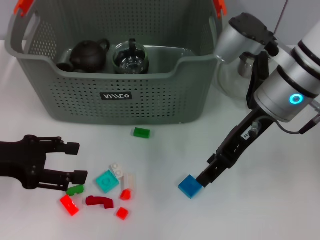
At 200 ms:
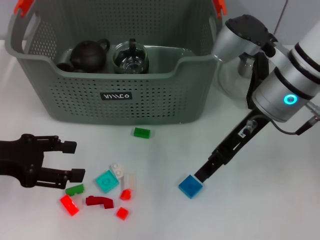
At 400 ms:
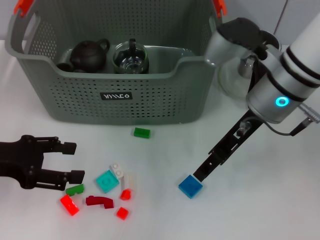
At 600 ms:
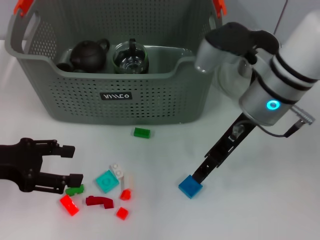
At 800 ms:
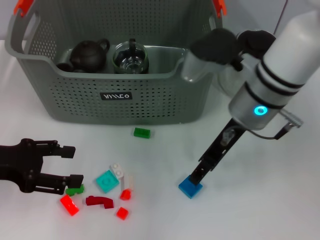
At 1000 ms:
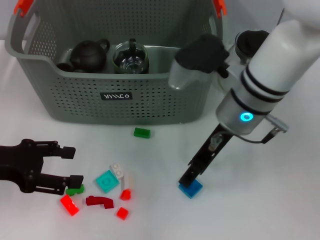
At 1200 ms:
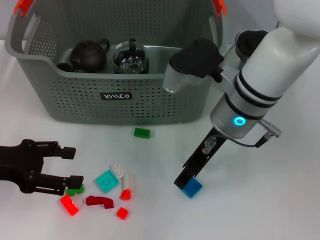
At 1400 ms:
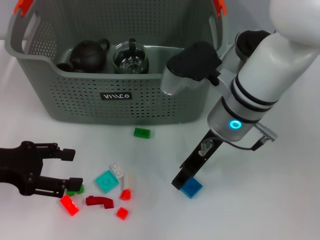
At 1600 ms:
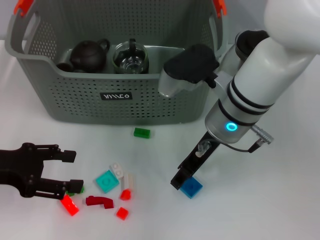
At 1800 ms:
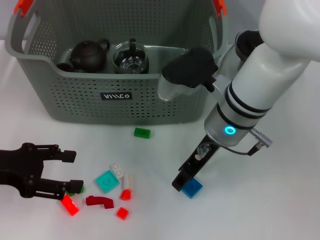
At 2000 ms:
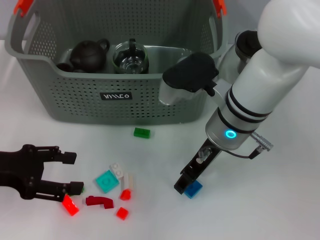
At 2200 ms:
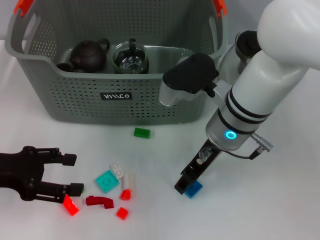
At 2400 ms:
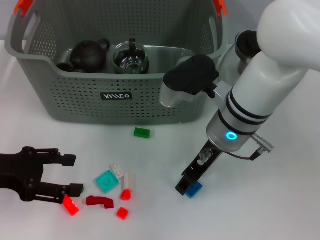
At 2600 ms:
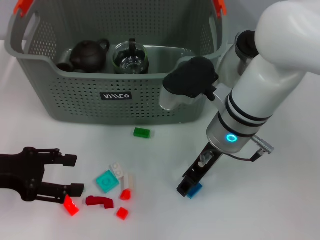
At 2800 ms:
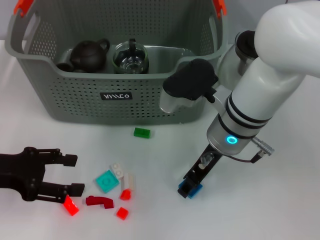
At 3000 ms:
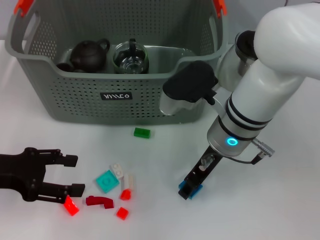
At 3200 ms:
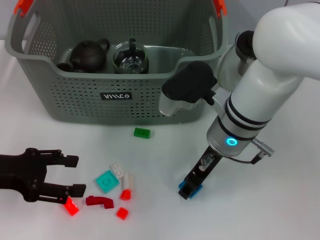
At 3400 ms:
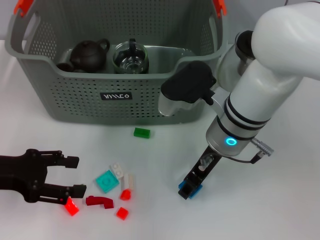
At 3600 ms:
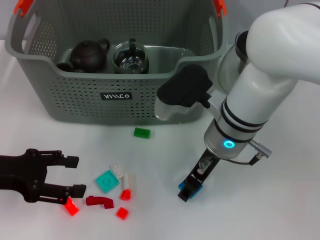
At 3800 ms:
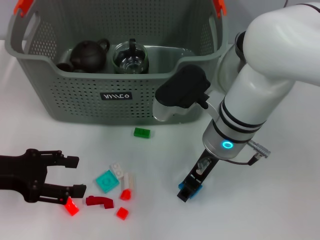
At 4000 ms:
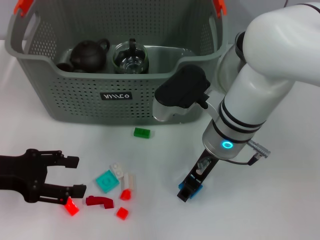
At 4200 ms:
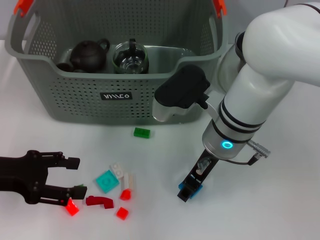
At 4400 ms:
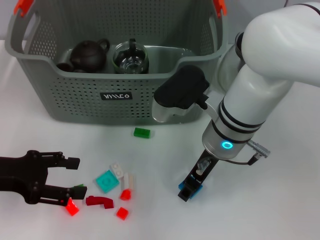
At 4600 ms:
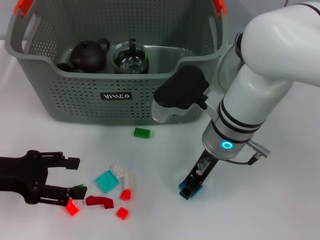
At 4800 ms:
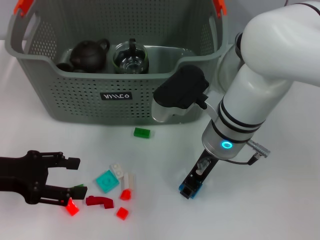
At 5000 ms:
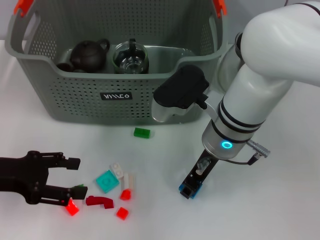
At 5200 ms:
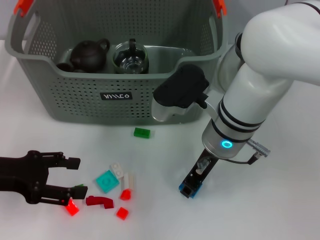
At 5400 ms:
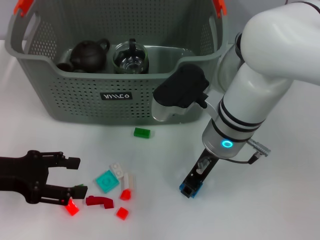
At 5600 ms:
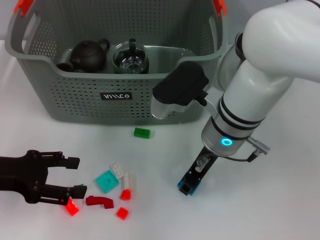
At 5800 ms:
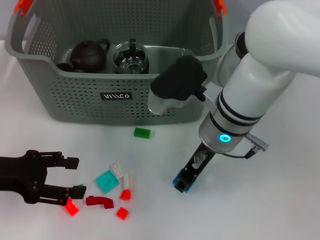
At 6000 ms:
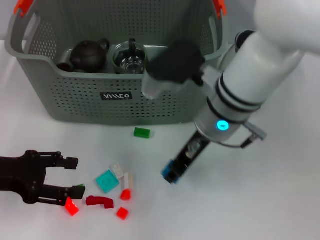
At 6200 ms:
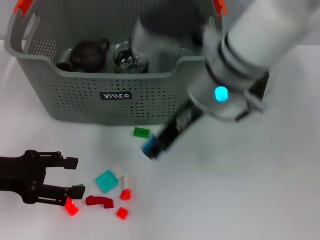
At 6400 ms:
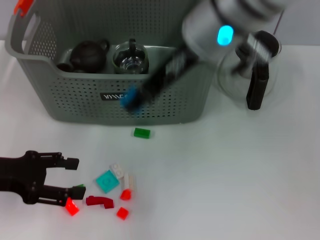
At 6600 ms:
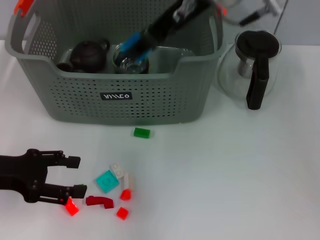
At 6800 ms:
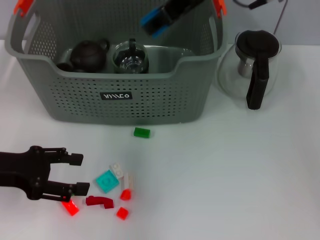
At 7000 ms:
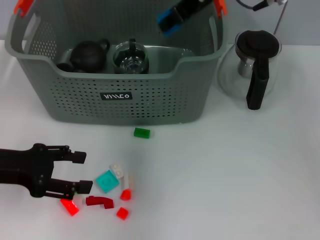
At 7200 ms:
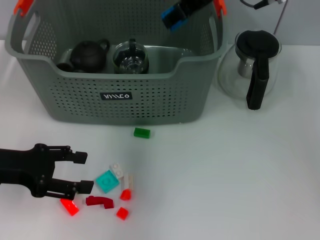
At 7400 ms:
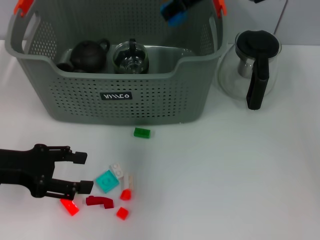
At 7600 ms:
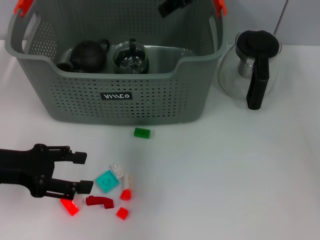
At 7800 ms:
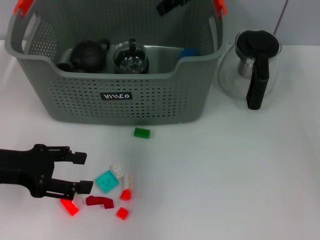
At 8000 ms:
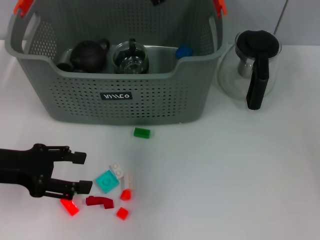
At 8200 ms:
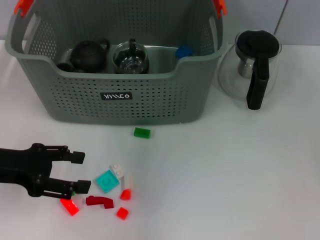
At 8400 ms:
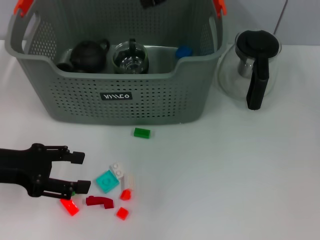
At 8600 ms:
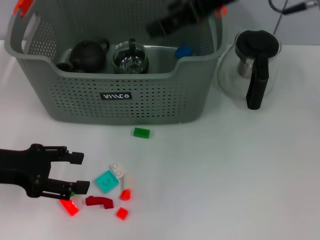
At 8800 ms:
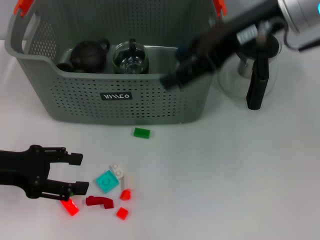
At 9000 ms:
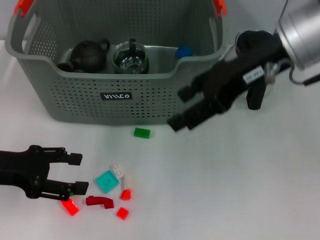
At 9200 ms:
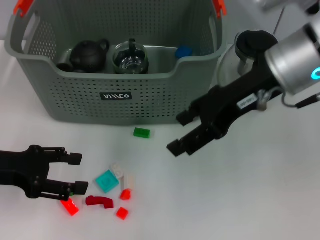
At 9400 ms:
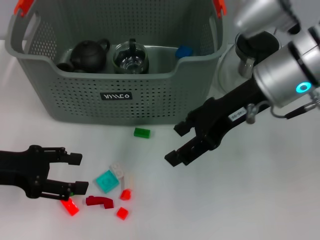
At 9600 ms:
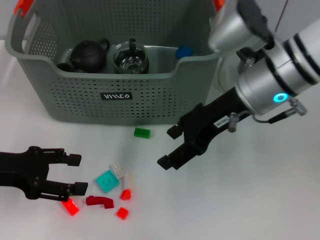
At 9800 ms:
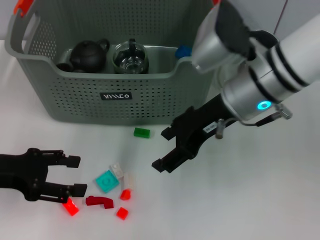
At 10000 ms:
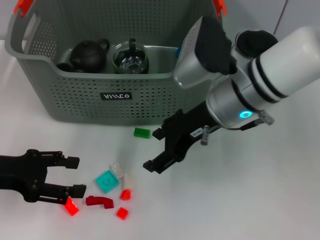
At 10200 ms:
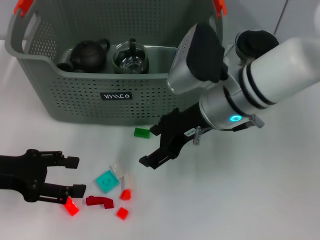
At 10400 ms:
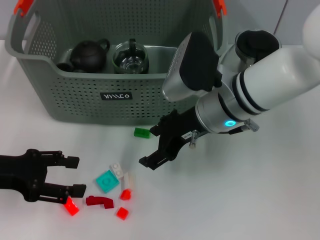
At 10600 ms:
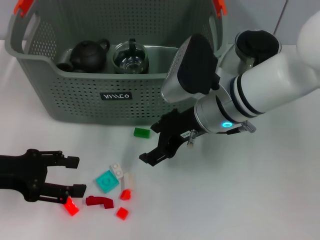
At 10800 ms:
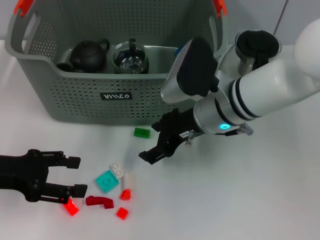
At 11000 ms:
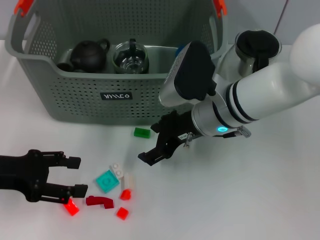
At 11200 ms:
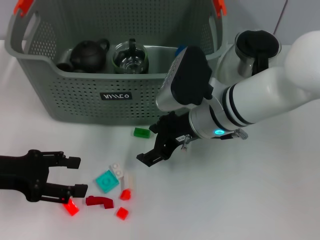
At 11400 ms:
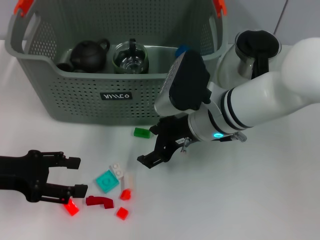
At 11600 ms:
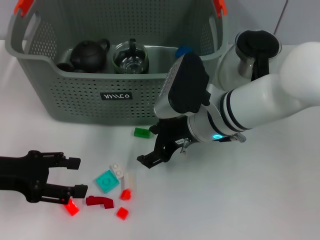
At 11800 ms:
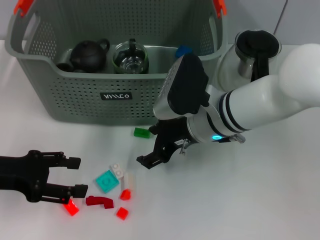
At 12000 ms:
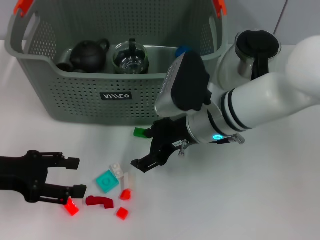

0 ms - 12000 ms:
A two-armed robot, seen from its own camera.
Task of the whole recording: pick up the teacup on the table and place it into the storage bin, pick up the block on the table and place it into the storage bin.
Step, 0 ms - 5800 ms: Grasp the dark blue block with right gripper.
Step, 6000 ms - 7800 ms: Place the dark blue block in the storage box with right gripper.
0 ms - 1600 ms: The right gripper shifts roughly 5 cm to the left.
1600 ms - 3000 ms: The grippers move only a little.
3000 ms - 4400 ms: Both grippers stay put.
4400 ms - 6000 ms: The grippers make only small movements.
6000 ms - 7600 ms: The right gripper shifts roughly 15 cm upward and forward.
7600 ms - 9000 ms: The right gripper heads backward and to the right, covering about 10 cm, and opens.
9000 ms - 10400 ms: The right gripper is displaced downward and to the left by approximately 15 cm.
10400 ms - 12000 ms: The grippers stay close to where they were, moving slightly.

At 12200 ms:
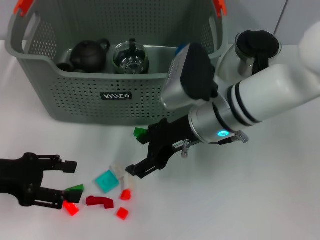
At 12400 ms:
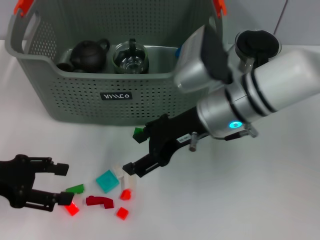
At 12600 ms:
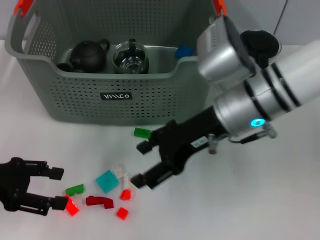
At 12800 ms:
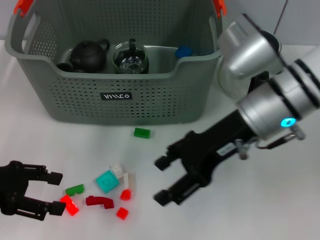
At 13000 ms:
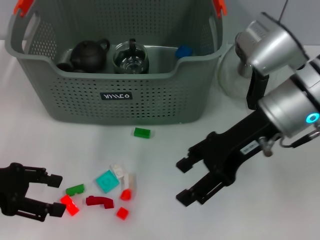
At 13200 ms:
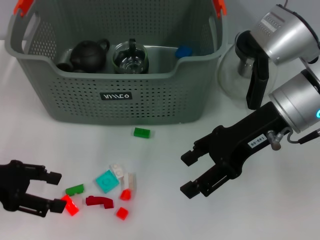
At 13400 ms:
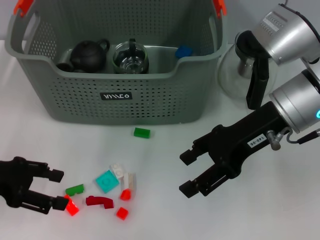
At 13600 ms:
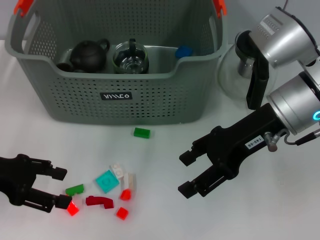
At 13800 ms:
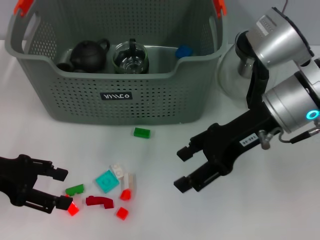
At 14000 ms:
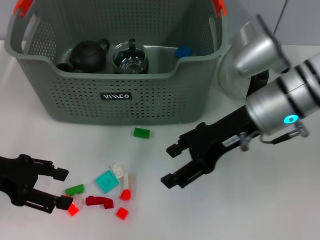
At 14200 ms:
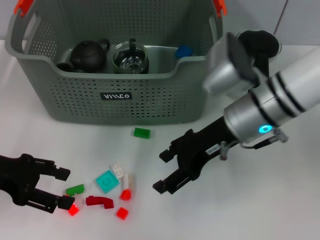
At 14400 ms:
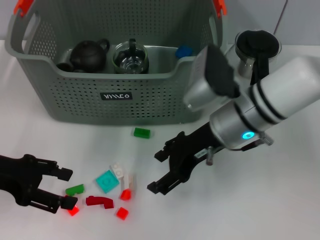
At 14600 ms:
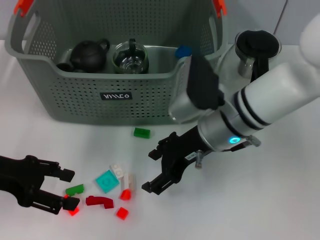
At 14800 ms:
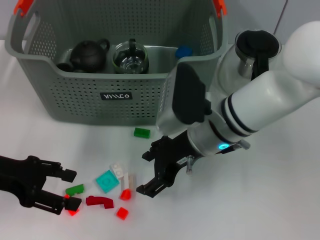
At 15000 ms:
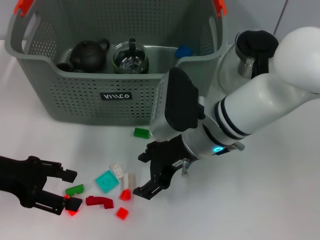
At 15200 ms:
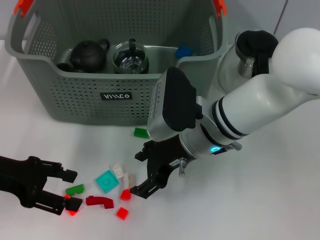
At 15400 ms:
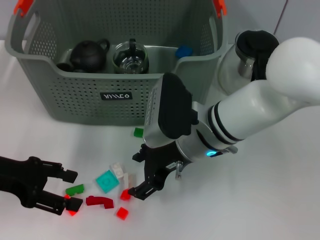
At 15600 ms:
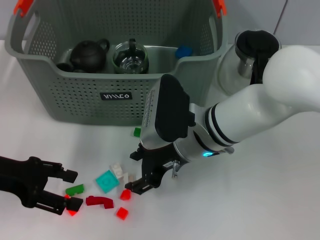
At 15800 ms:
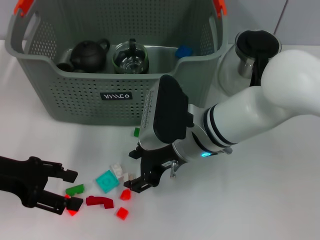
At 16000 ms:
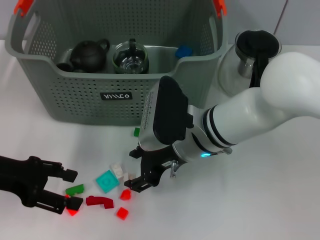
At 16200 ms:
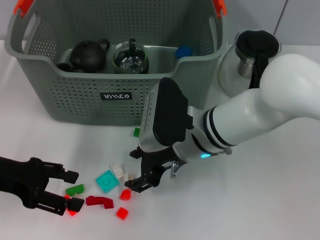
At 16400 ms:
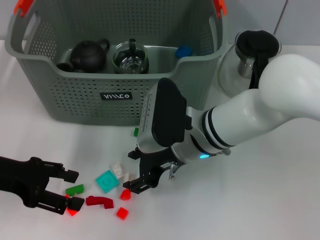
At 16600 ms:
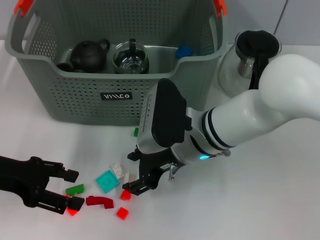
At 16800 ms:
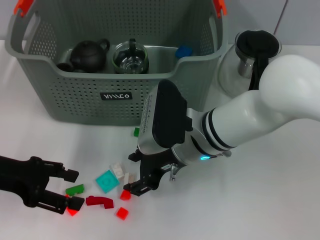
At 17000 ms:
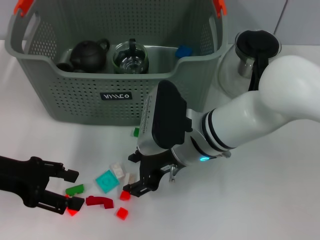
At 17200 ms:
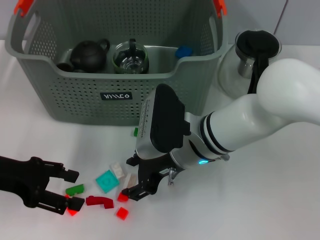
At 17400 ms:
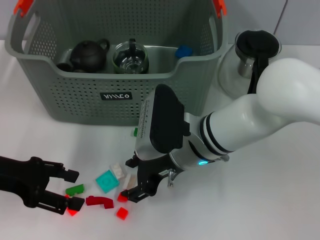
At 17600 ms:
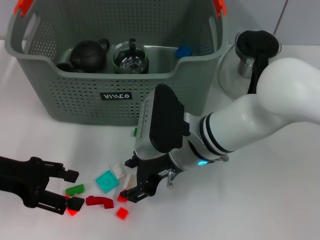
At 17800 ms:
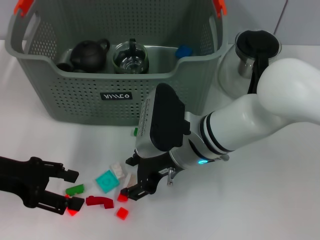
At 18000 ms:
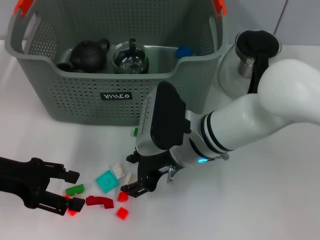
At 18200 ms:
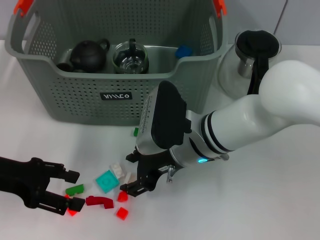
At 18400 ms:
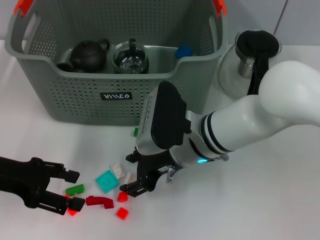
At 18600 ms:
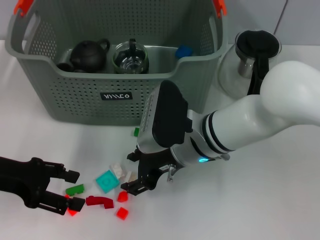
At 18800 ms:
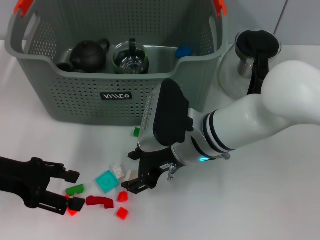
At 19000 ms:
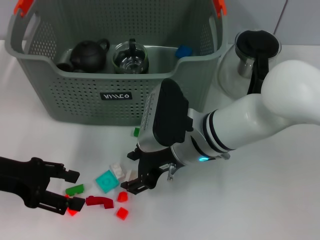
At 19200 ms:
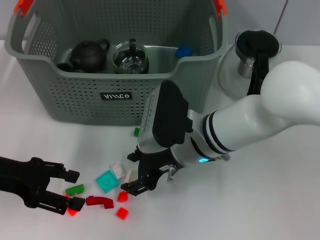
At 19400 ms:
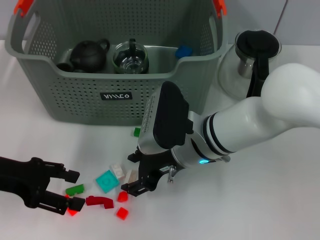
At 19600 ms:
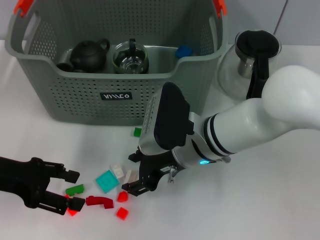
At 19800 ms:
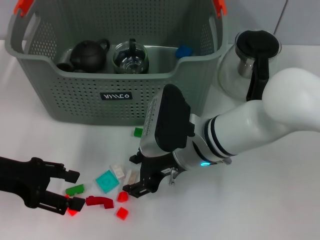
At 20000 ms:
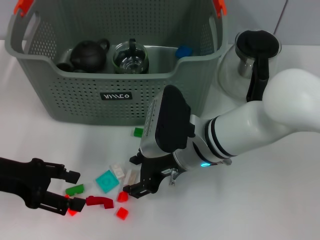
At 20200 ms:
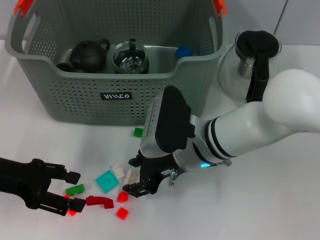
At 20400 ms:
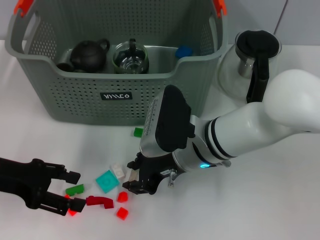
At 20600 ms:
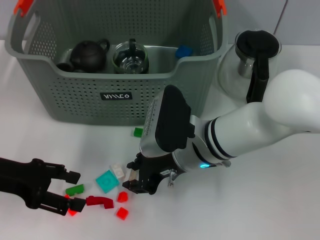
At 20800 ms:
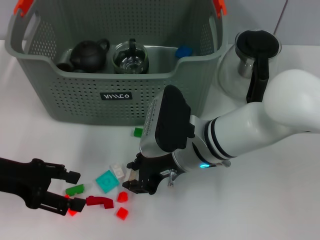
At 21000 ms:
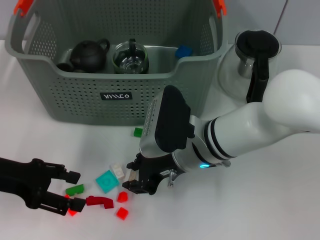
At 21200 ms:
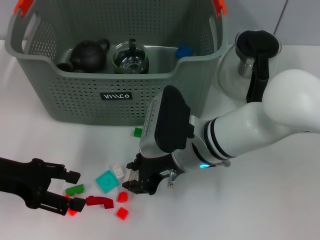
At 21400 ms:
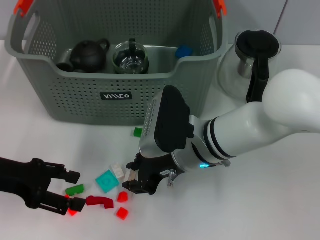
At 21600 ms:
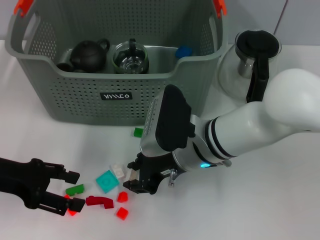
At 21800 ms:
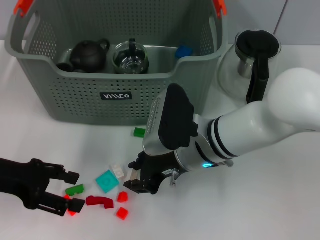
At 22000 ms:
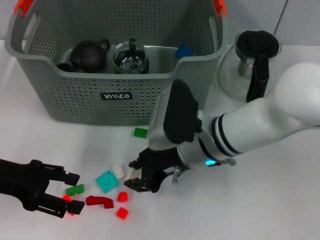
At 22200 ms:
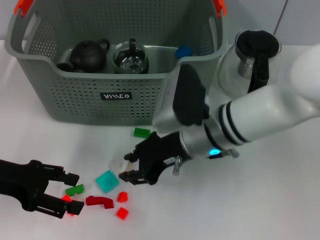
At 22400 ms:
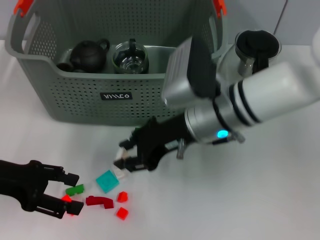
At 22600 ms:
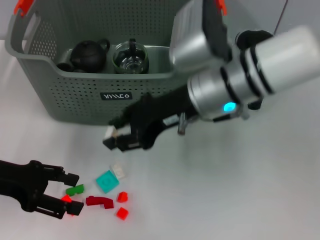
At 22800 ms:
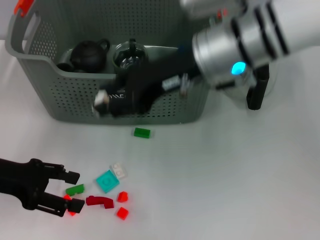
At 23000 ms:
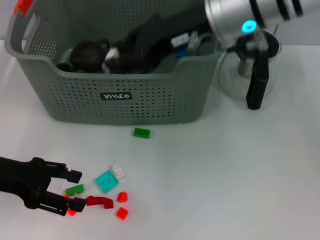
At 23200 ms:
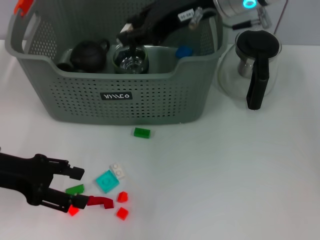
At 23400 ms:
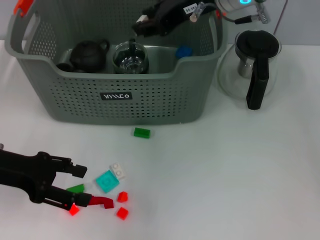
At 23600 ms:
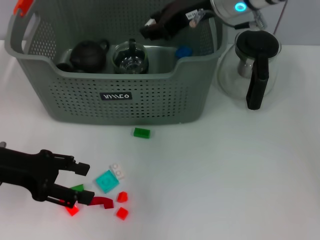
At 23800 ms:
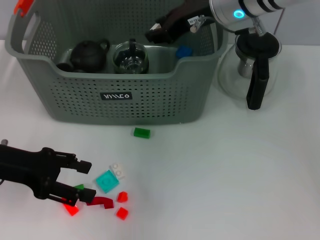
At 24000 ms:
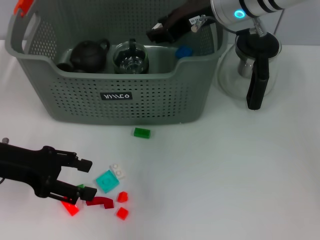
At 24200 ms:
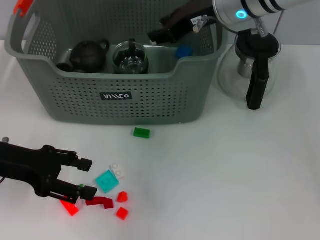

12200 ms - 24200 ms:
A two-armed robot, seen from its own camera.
Task of the whole recording: pick up the teacup on the table and place it into the storage bin, pick up the block on the table and place it into the storage bin.
Step, 12200 ms - 22000 ms: Grasp the white block with right gripper.
12200 ms - 13800 ms: The right gripper heads to the right and upward, covering some 10 cm.
13800 ms - 15200 ms: The right gripper travels to the left and downward by some 10 cm.
15200 ms - 16600 ms: The grippers stay close to where they were, moving slightly.
16600 ms - 19800 ms: Neither gripper changes place.
19800 ms - 21200 ms: The right gripper closes its fingers.
21200 ms - 22600 ms: The right gripper travels upward by approximately 10 cm.
22600 ms - 24200 ms: The right gripper shifts roughly 10 cm forward.
